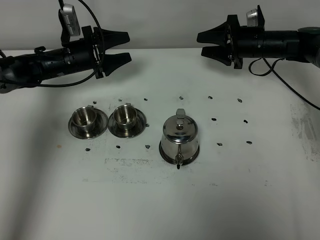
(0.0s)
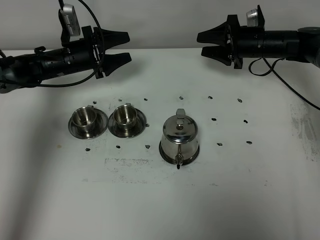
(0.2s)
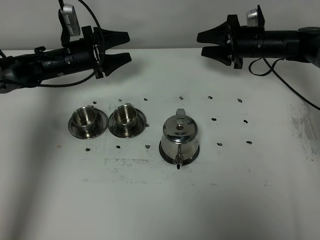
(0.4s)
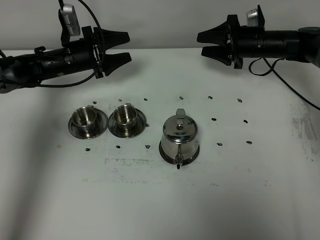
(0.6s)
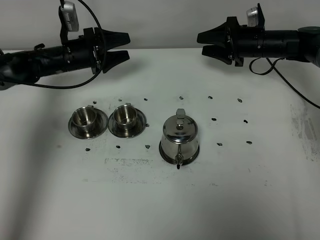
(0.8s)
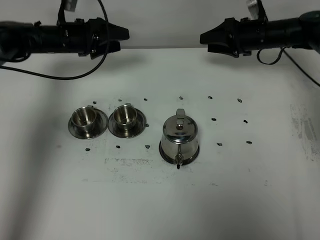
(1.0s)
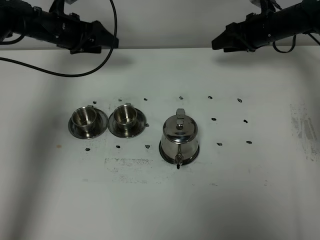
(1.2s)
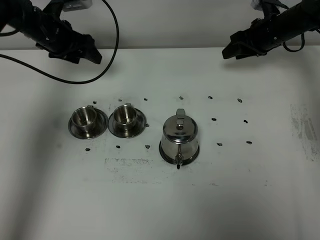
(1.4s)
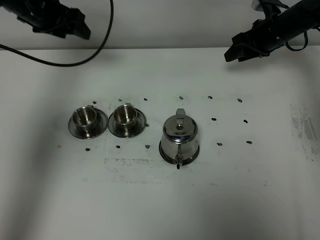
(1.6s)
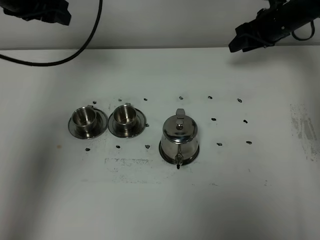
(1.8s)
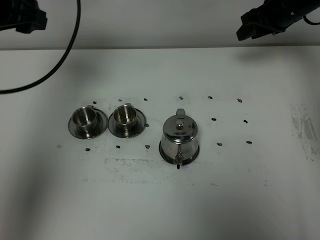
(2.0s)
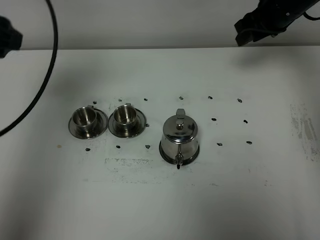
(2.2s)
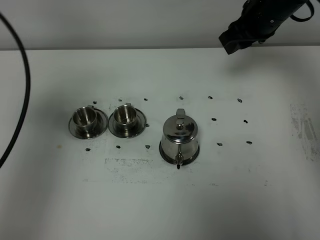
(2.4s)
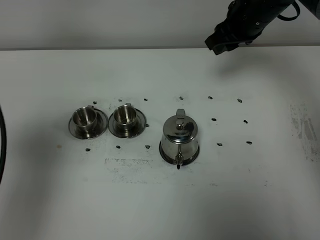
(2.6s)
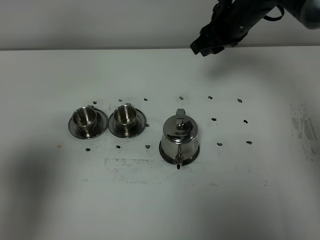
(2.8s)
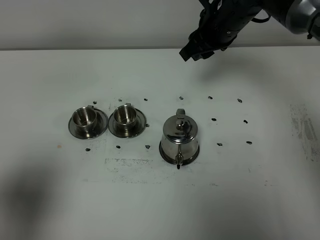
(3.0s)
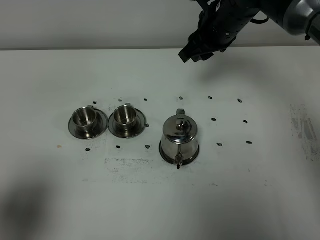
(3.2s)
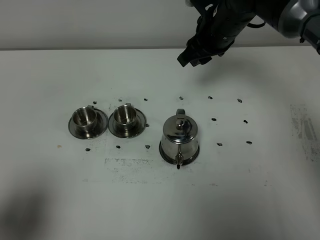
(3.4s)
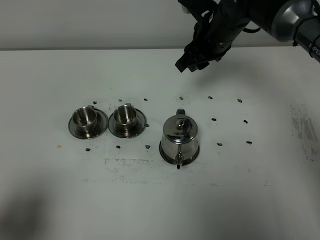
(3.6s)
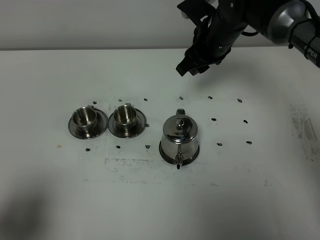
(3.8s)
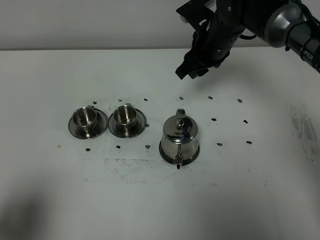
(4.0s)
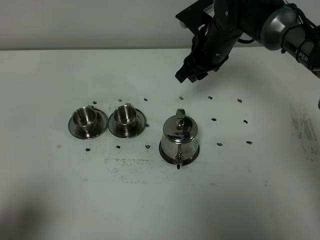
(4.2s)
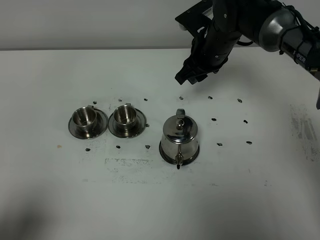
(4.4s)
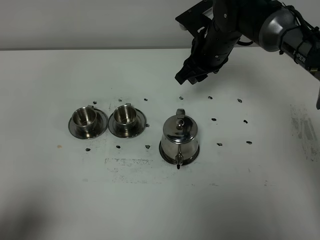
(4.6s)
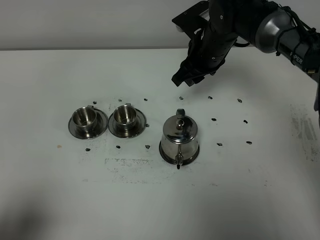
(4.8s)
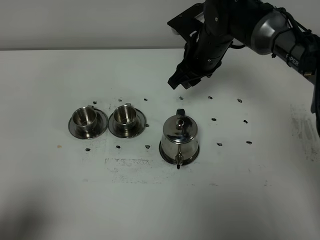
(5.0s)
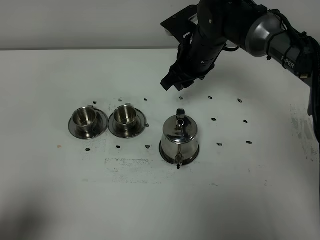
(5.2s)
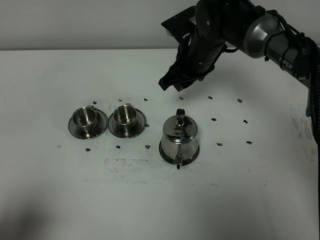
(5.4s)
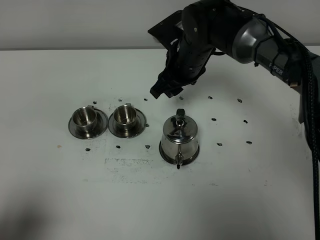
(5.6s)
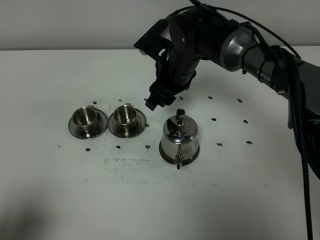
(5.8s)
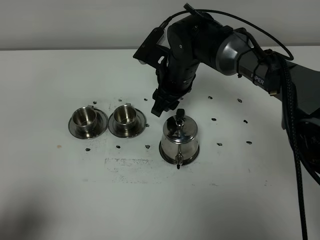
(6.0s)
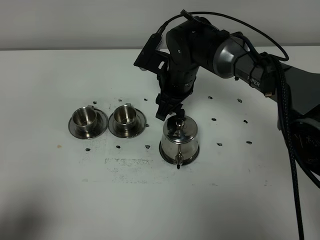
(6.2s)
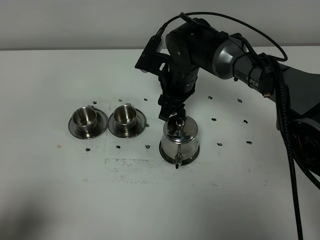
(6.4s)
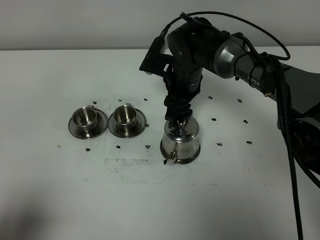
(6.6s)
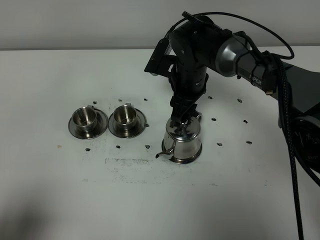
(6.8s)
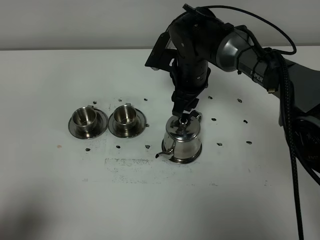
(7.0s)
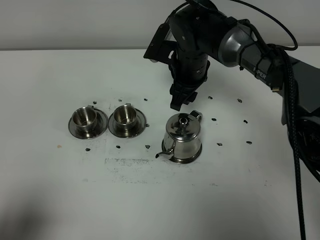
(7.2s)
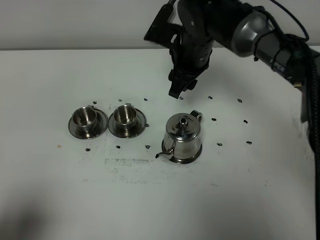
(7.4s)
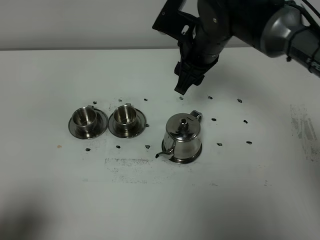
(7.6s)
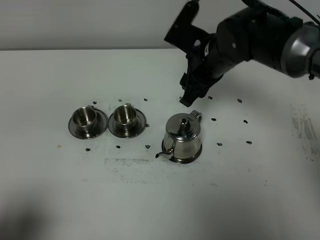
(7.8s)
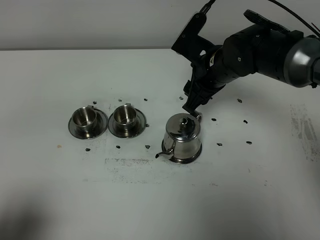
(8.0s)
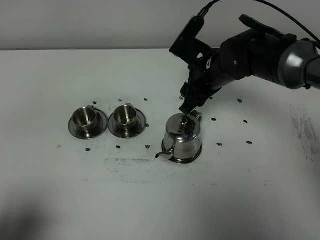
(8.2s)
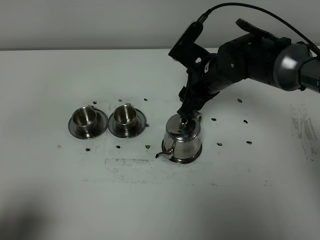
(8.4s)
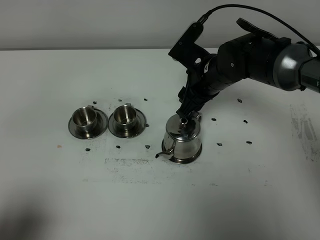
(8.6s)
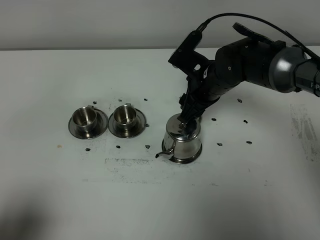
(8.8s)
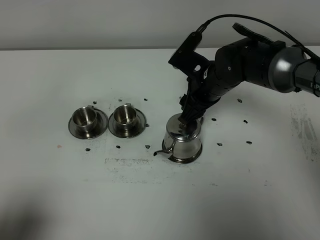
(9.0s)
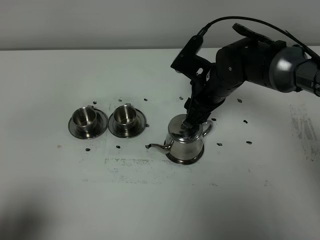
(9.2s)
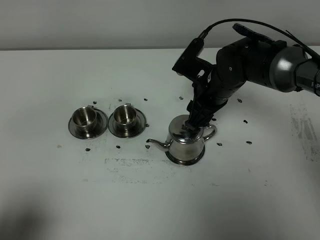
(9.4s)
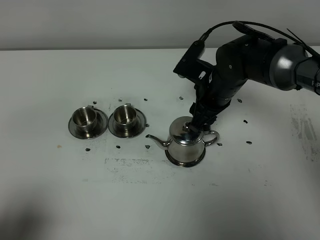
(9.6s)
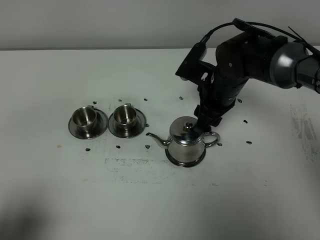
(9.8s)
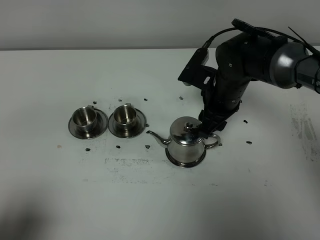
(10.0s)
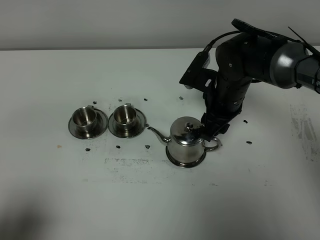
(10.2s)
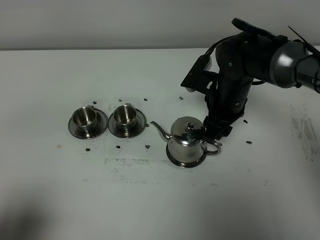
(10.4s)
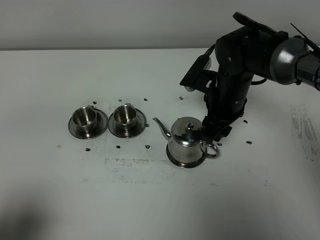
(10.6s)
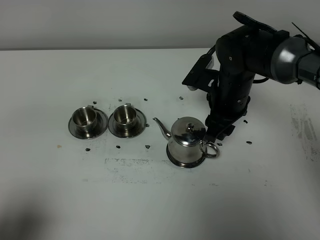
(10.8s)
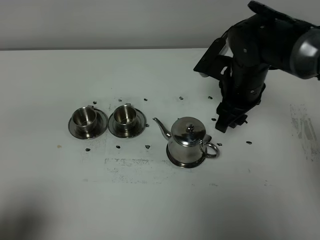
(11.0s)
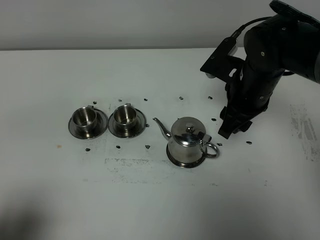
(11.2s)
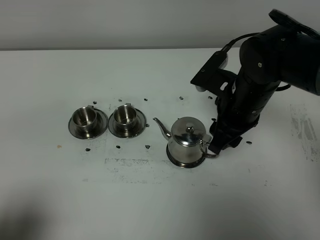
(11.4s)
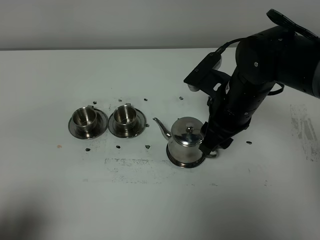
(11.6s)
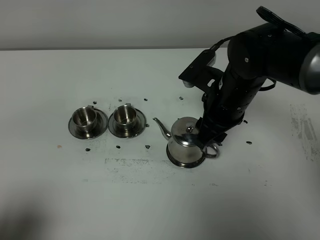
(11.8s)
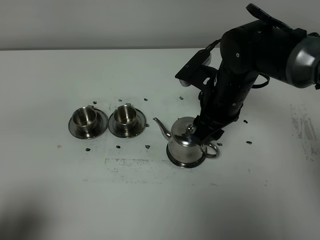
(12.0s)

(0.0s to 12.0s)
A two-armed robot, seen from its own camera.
Task of the whole recording: grasp the stainless steel teapot and pour the tea into the two stainless steel teacups one by one, put the stainless steel teapot back in its original place.
0.0s - 1.6s: The left gripper moves upward, approximately 20 cm; the right gripper ends up approximately 5 cm from where it was.
1.6s - 3.0s: The right gripper is displaced to the left, backward and upward by roughly 20 cm. The left gripper travels backward by roughly 40 cm.
3.0s - 4.4s: The left gripper heads backward, covering approximately 5 cm. The right gripper is displaced downward by approximately 5 cm.
4.4s - 6.0s: The right gripper moves to the left, roughly 5 cm.
6.0s - 7.6s: The right gripper heads upward, covering about 10 cm.
7.6s - 9.0s: The right gripper moves downward, approximately 10 cm.

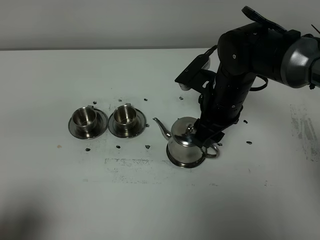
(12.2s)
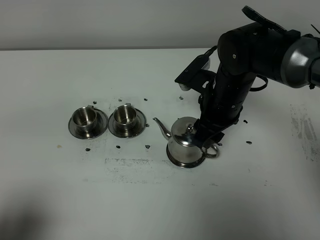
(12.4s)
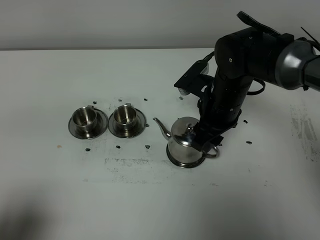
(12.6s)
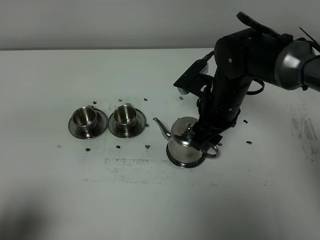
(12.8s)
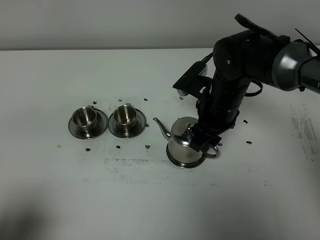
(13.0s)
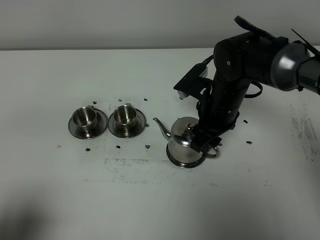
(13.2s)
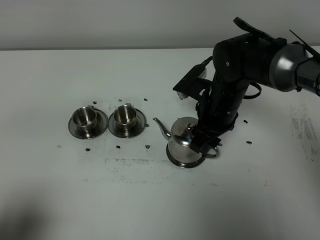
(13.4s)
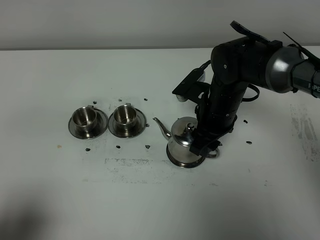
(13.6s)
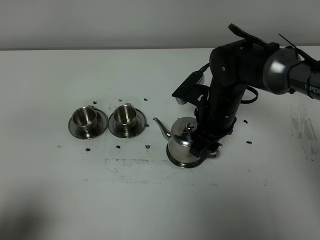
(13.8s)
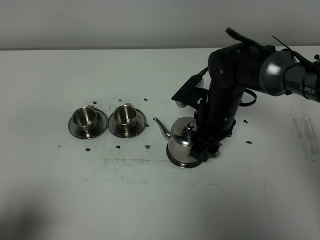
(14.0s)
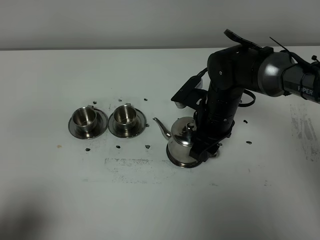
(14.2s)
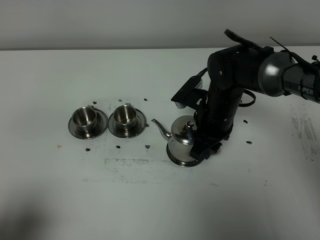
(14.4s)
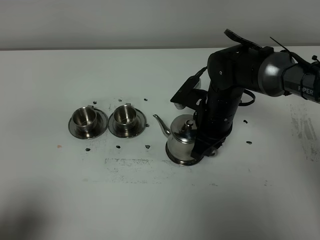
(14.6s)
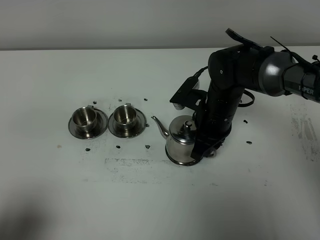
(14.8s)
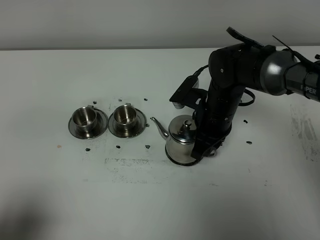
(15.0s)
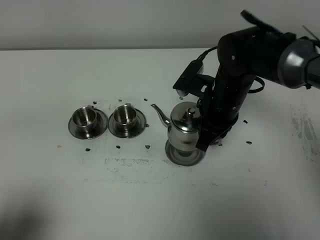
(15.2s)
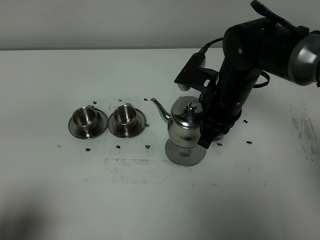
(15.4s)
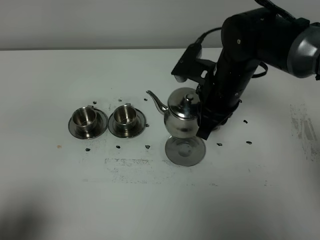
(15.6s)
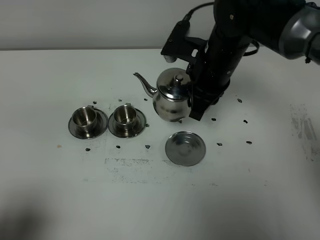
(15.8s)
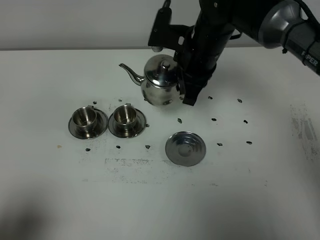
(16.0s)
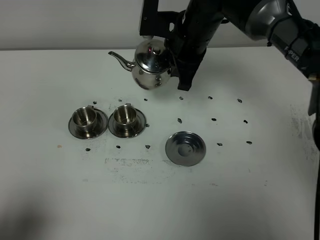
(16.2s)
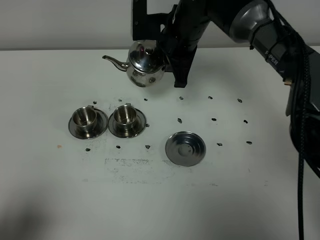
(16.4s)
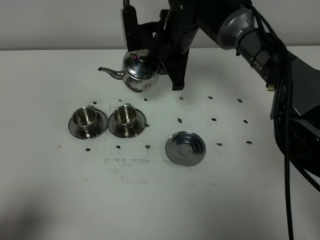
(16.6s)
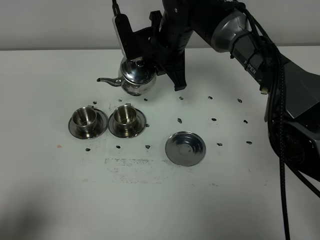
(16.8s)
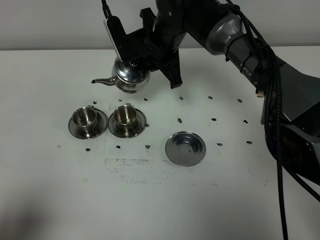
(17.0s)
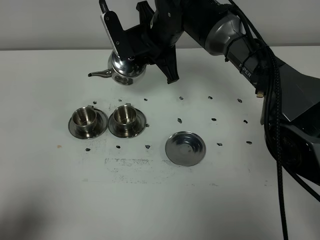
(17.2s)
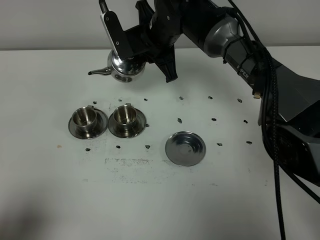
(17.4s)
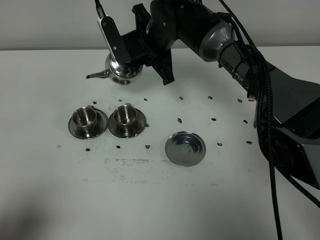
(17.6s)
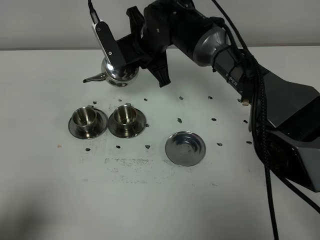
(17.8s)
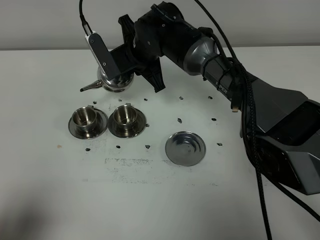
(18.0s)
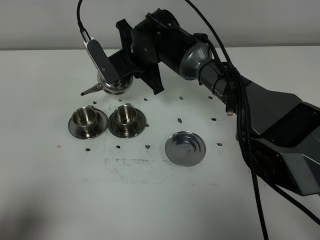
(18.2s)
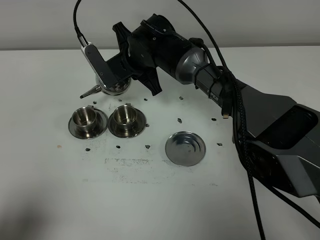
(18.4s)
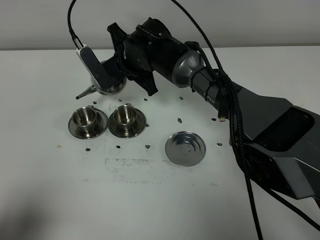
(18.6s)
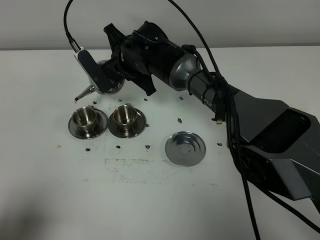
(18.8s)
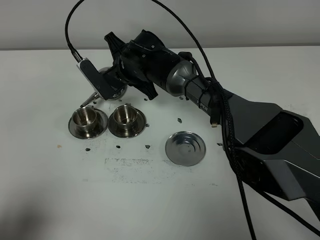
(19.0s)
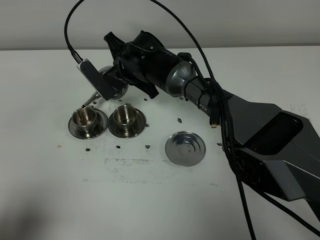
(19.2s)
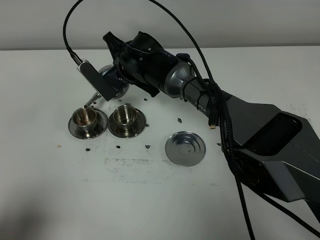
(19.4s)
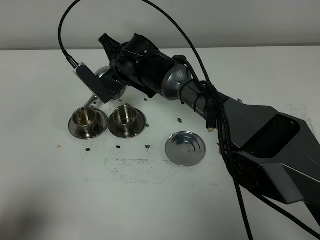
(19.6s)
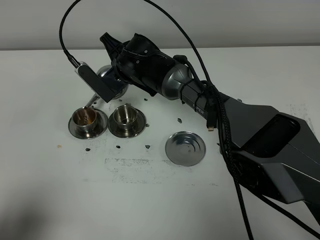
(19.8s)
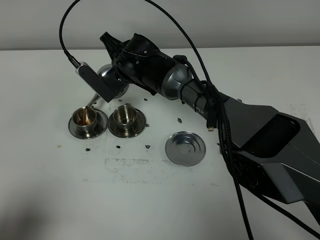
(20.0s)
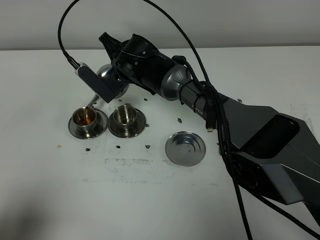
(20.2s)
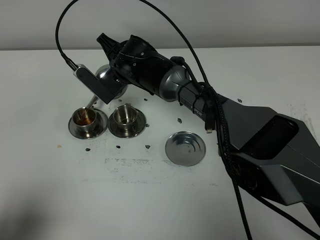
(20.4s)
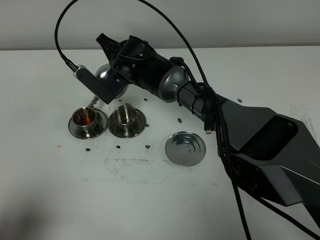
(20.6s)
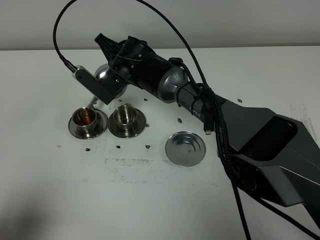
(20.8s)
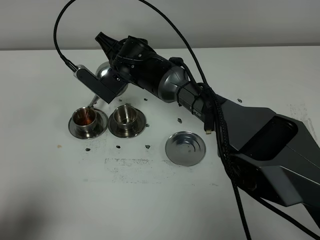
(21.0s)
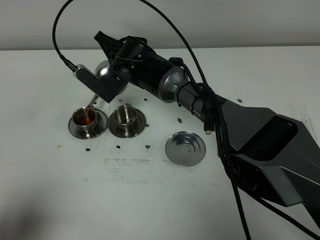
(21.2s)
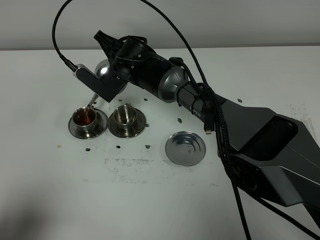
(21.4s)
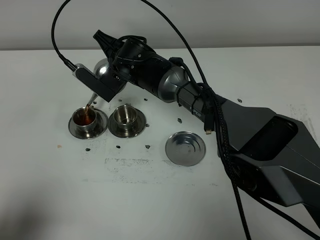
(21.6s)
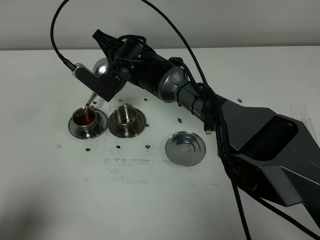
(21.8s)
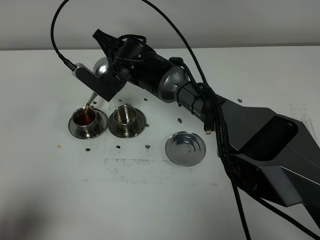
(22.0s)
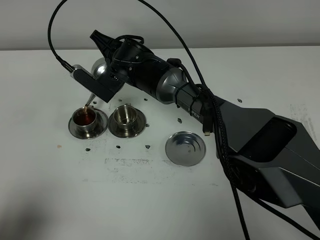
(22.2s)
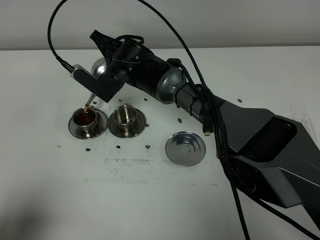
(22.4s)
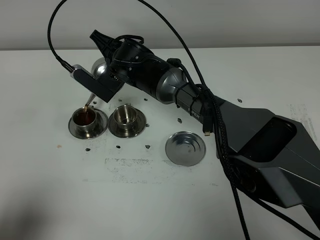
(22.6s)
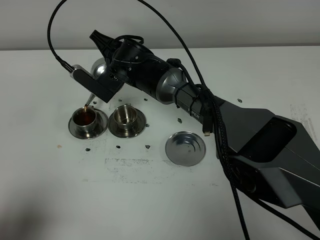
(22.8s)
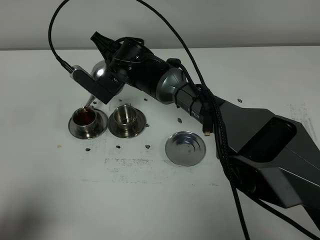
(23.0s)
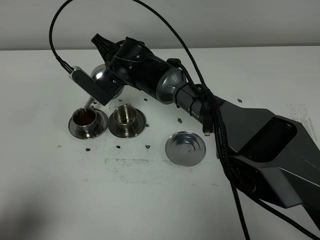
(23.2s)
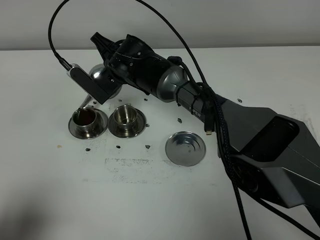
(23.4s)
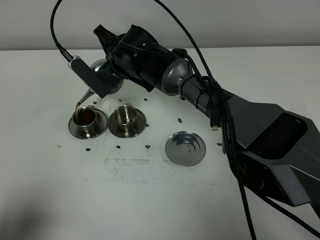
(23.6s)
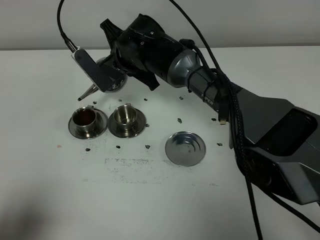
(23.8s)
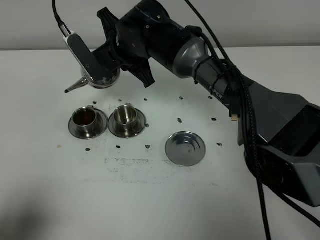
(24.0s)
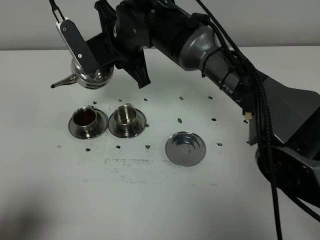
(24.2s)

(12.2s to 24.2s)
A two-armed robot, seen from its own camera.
Task of the whole recording: grasp the stainless steel teapot and pour the tea into the two stainless steel teacups one by one, put the stainless steel teapot back in its original place.
Step, 12.2s - 15.0s: Pick up the teapot with the right gripper.
12.2s - 13.8s: The grippers move only a little.
13.8s - 15.2s: The right gripper closes its fingers.
15.2s - 16.6s: The right gripper heads forward and to the left, covering some 15 cm.
16.6s - 18.2s: The right gripper heads to the left, covering about 5 cm.
19.8s - 21.2s: There are only small adjustments of the grippers.
21.2s - 22.6s: Both grippers stay about where they are.
22.6s - 24.2s: The right gripper goes about 10 cm upward.
